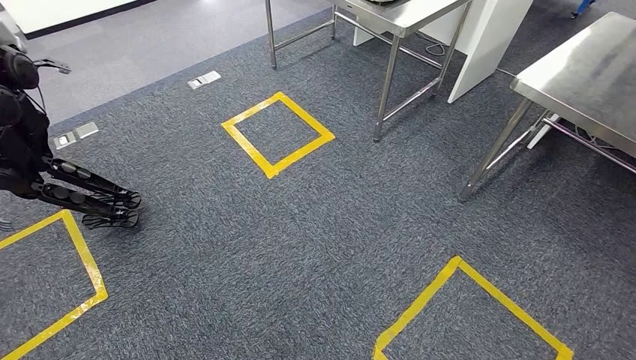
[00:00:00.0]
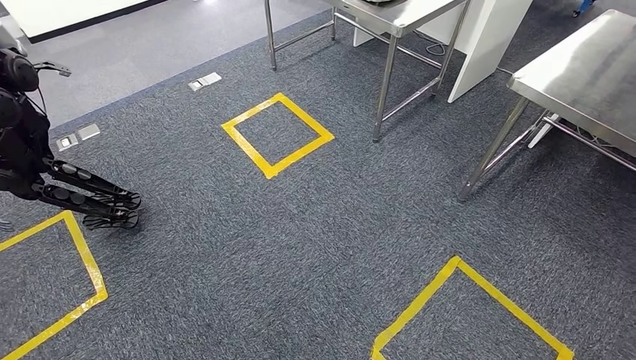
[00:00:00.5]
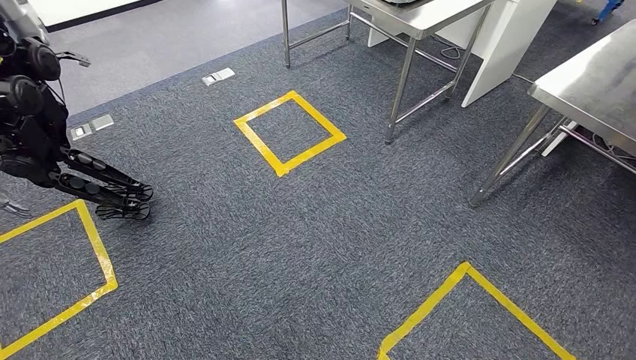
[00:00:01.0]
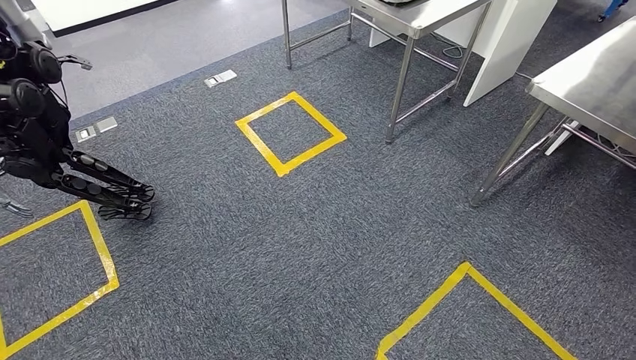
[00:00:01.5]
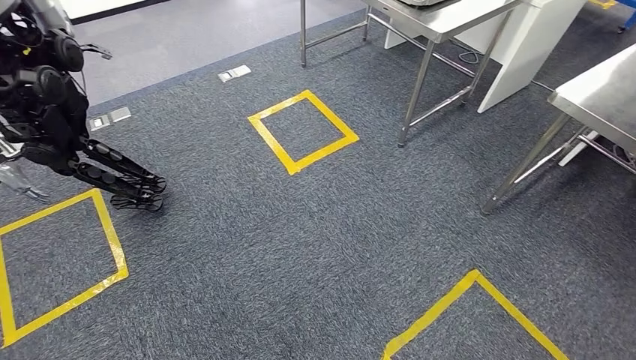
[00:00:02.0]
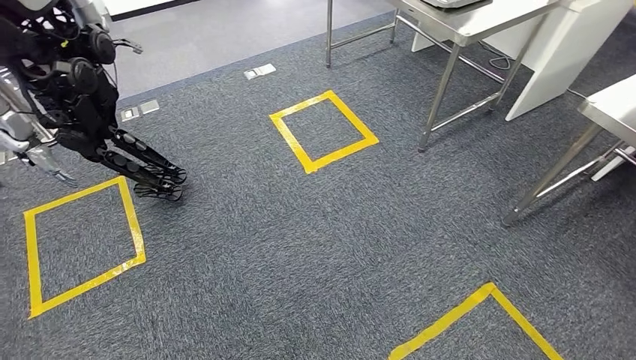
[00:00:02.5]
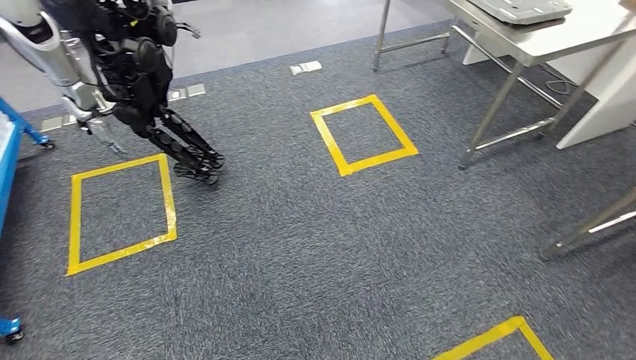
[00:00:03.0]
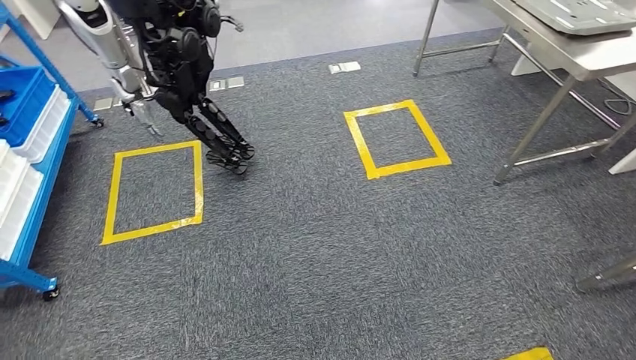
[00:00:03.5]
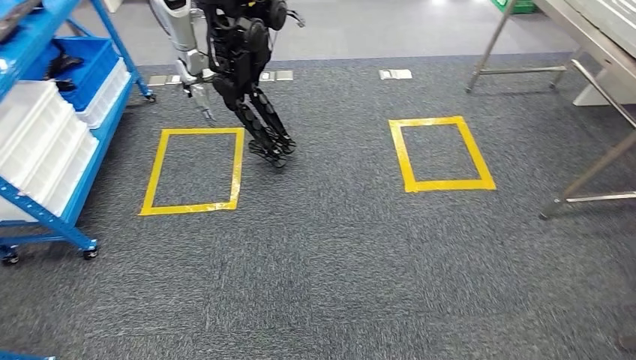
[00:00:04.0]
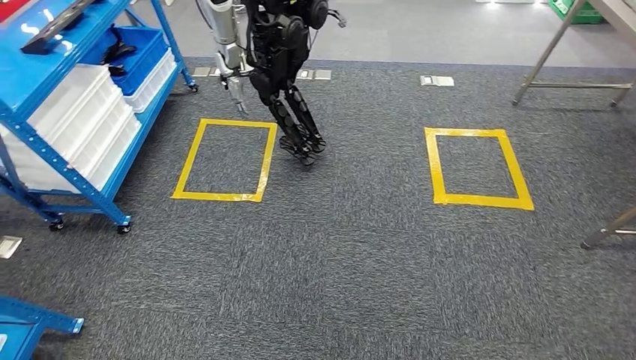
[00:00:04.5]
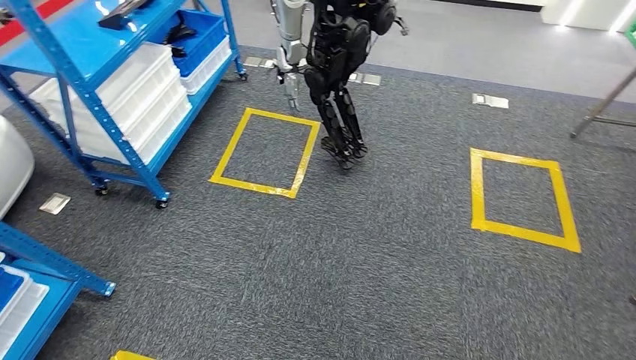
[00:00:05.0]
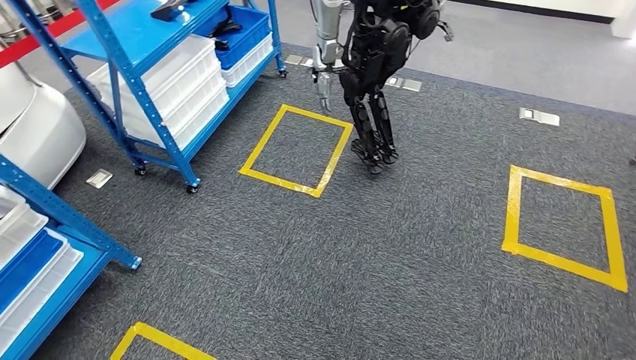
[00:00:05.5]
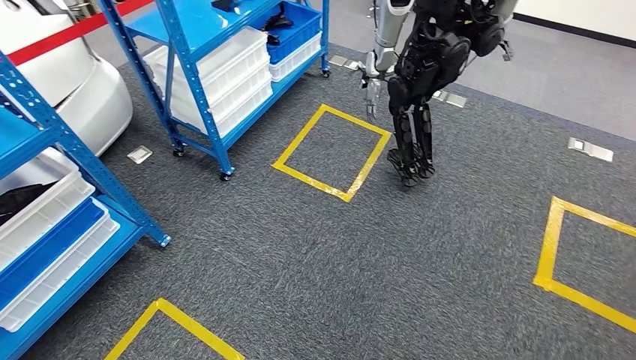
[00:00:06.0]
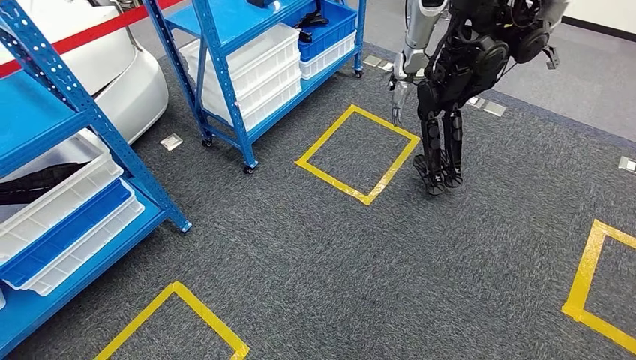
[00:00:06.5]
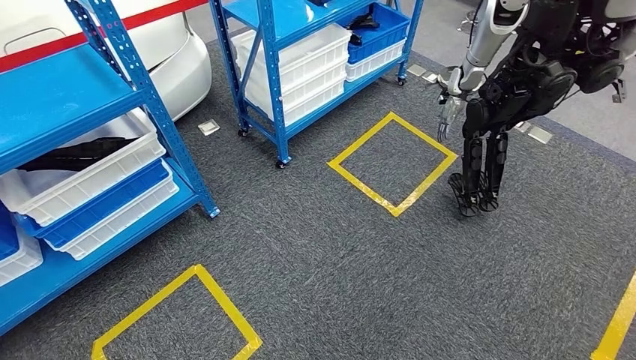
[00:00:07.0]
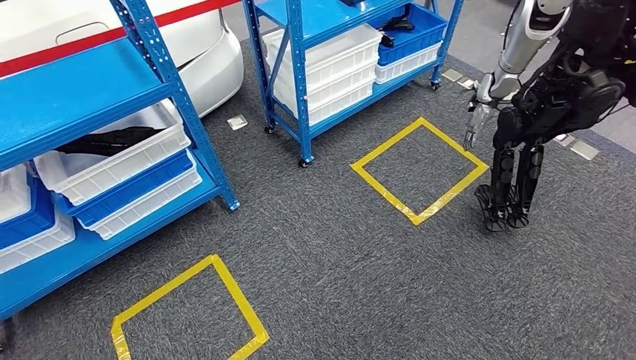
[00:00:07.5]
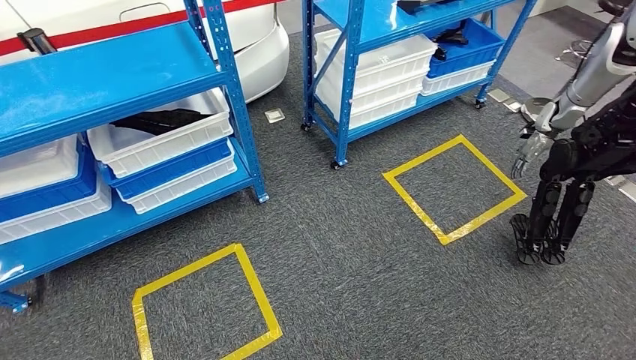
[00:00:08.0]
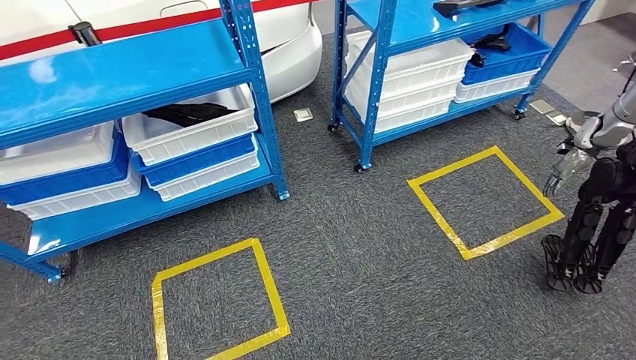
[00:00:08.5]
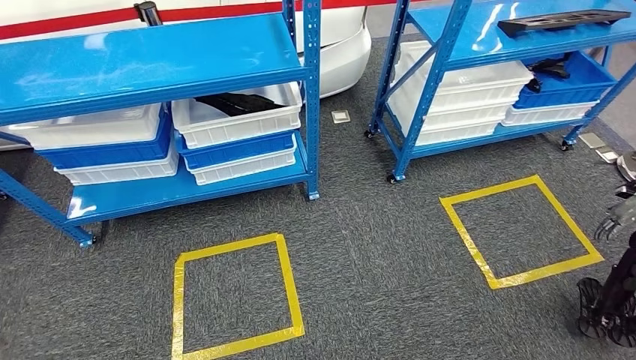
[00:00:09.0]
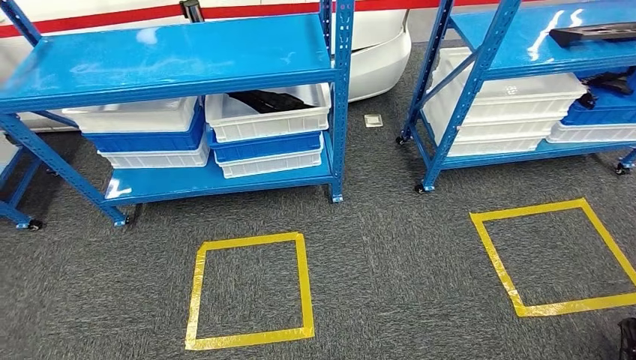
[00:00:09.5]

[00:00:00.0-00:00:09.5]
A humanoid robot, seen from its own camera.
Step, 00:00:00.0 to 00:00:09.5: Move to the initial position of the shelf.
